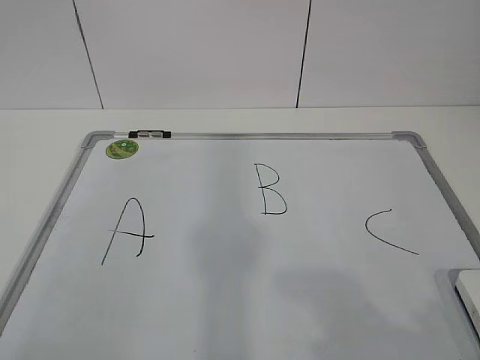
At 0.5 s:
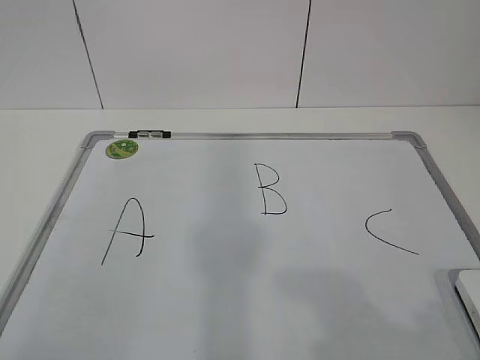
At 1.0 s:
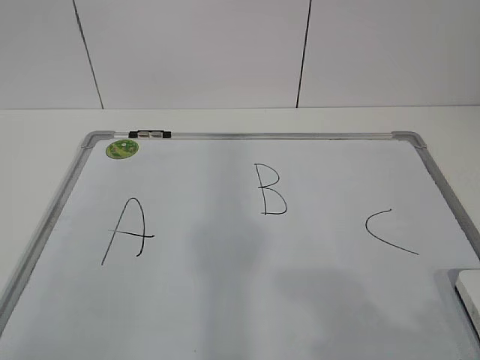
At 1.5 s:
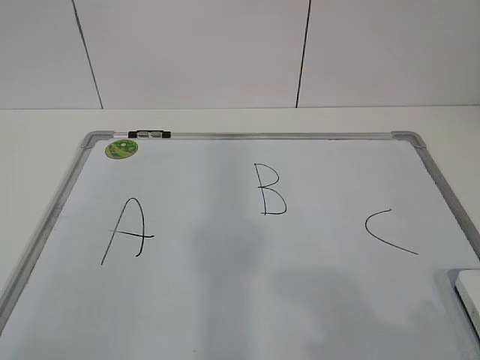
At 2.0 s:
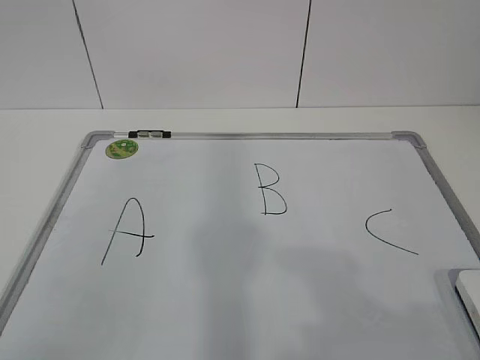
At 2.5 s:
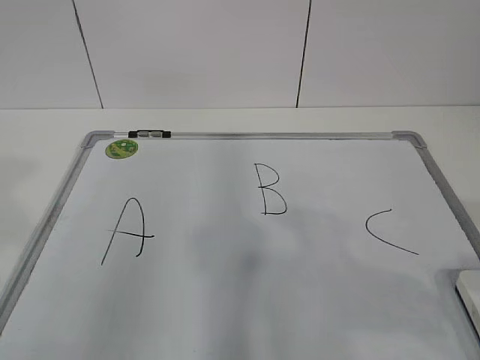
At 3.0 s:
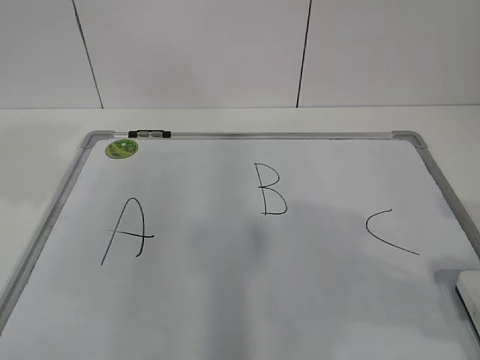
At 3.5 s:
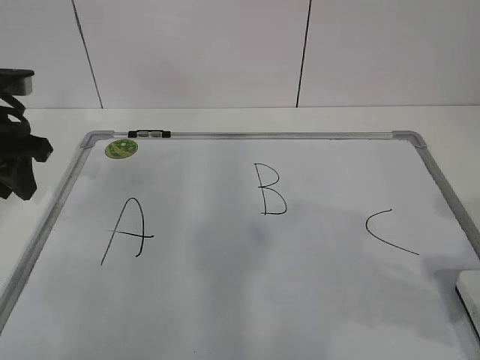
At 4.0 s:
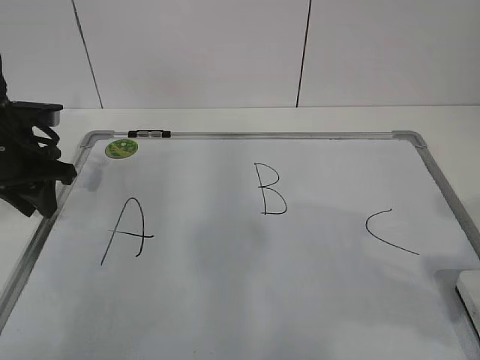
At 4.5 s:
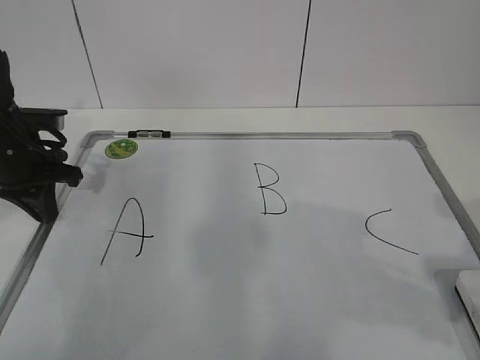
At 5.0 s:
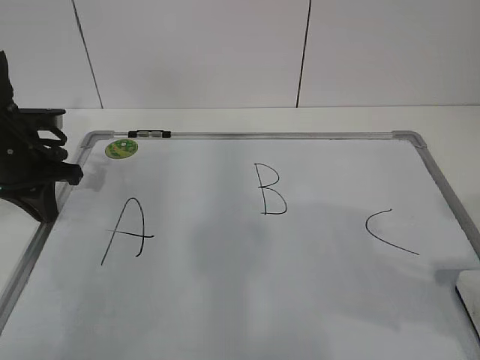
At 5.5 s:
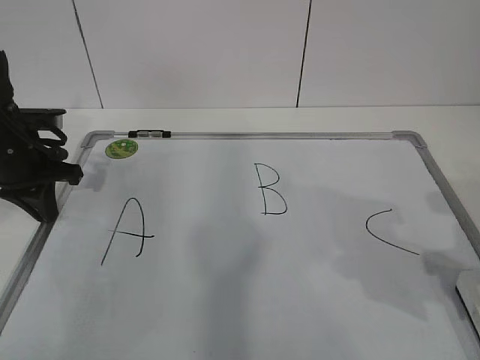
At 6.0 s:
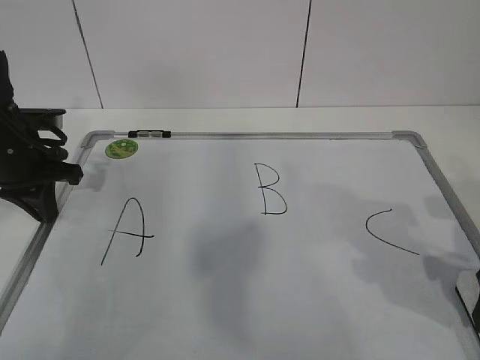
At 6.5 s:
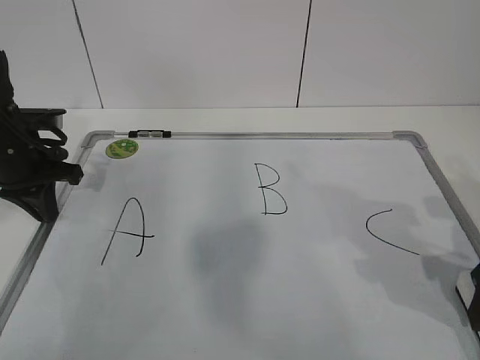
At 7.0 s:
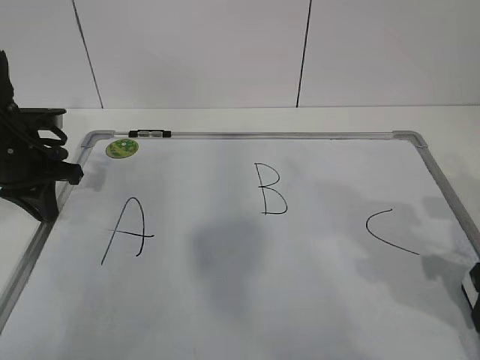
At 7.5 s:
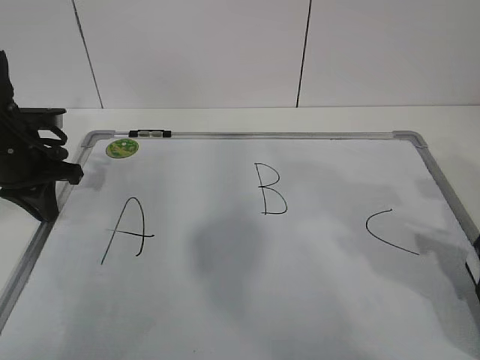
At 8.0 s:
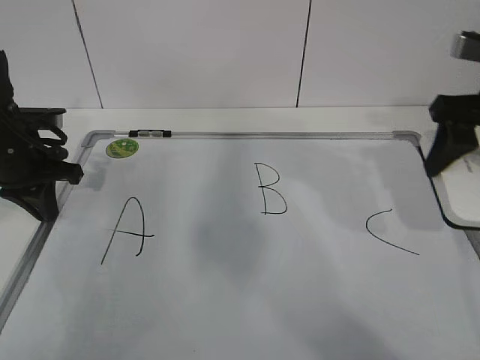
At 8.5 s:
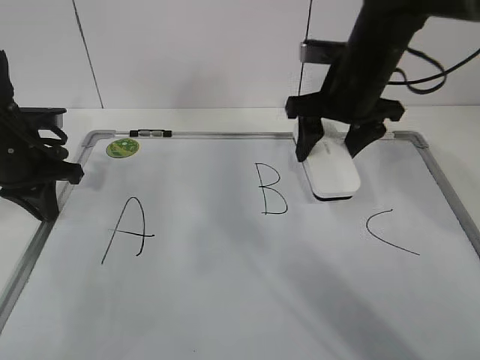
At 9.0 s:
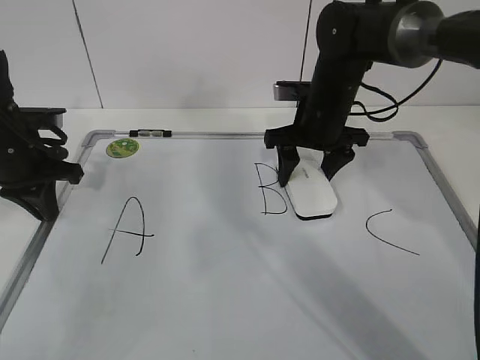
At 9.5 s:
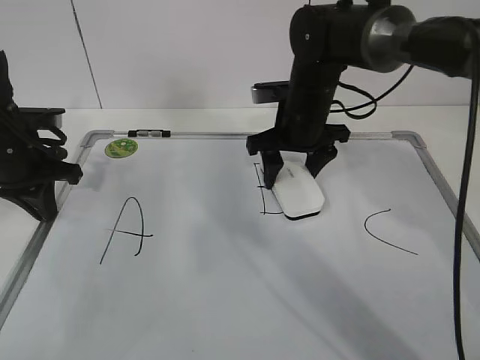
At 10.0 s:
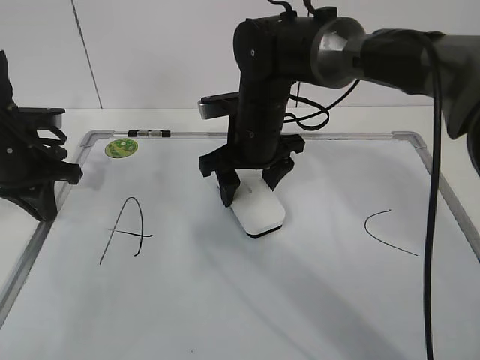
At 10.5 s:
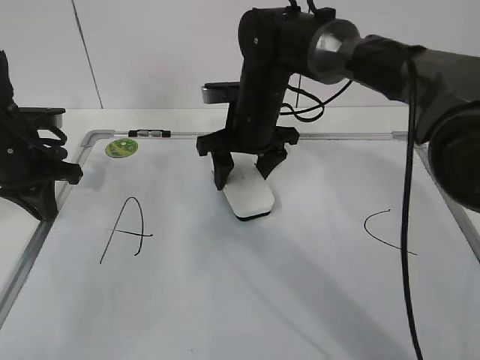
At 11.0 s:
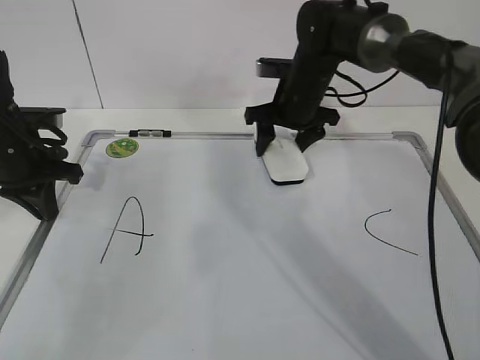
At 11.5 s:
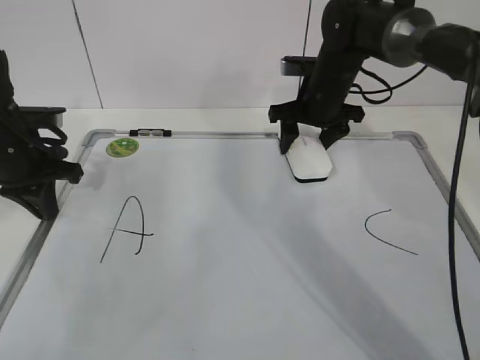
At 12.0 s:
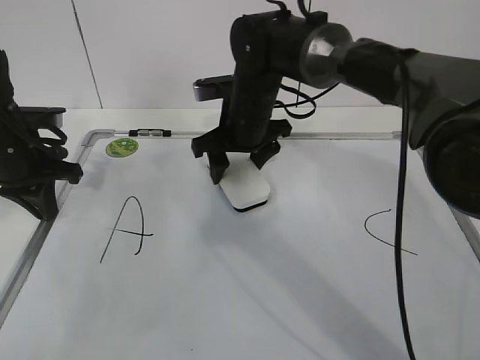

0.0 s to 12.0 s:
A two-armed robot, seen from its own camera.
Task of the whole recording: pick up the eraser on the blackboard and erase the letter "B".
Step, 0.0 to 3.5 s: Hold the drawing board steady with your left hand.
Step, 4.0 to 5.5 s: Grab the eraser with your right hand.
Step, 6.0 to 10.5 s: Erase the letter B with your right hand.
2.0 to 4.0 s: The right gripper travels forward by some 10 cm; the left gripper moves forward, approximately 35 cm.
4.0 to 6.0 s: The left gripper closes.
6.0 to 8.0 s: The right gripper goes some 15 cm forward and upward, and closes its fingers.
8.0 to 10.0 s: The right gripper goes approximately 30 cm to the left, downward and forward.
10.0 to 12.0 s: The right gripper travels to the right and back again, approximately 10 cm each way.

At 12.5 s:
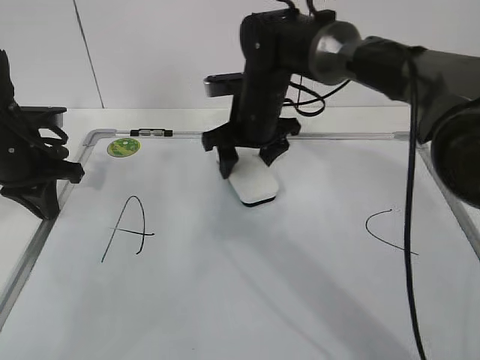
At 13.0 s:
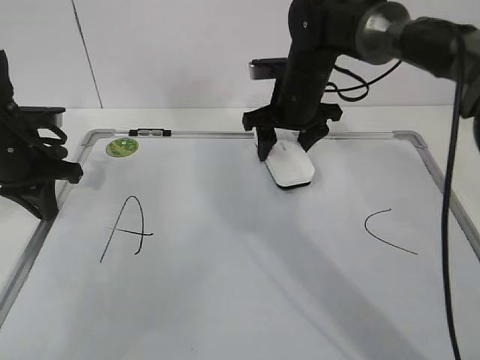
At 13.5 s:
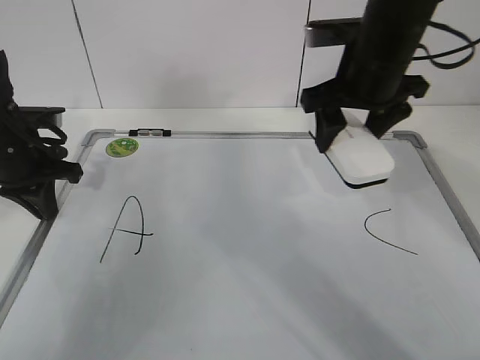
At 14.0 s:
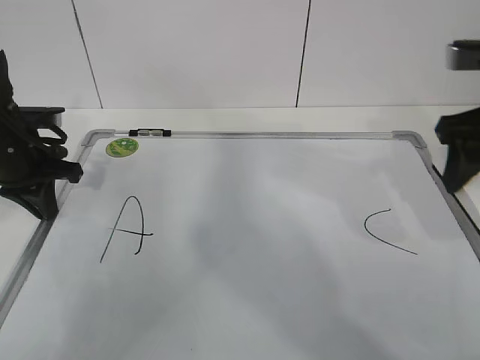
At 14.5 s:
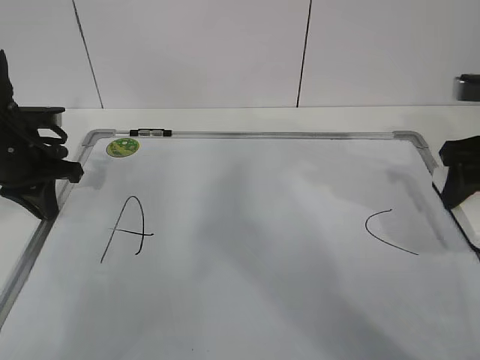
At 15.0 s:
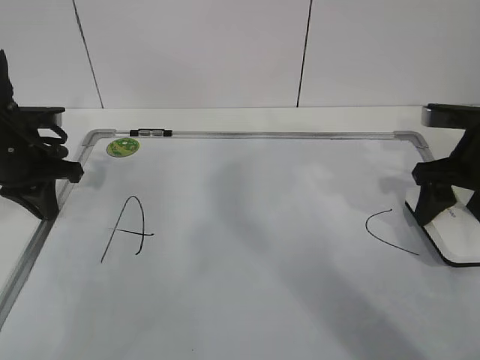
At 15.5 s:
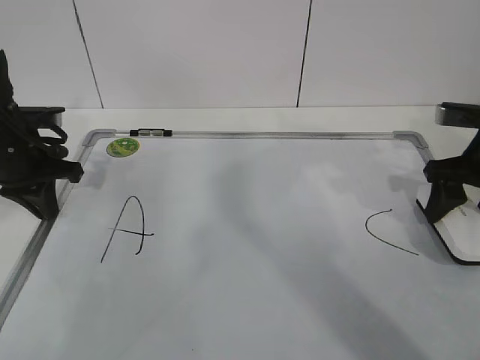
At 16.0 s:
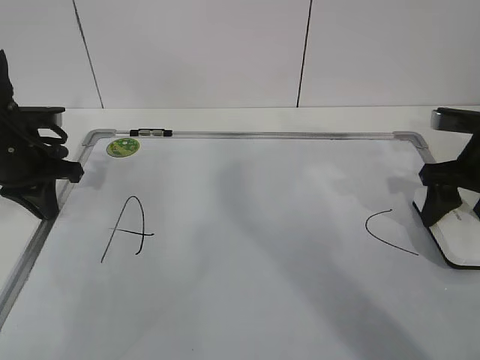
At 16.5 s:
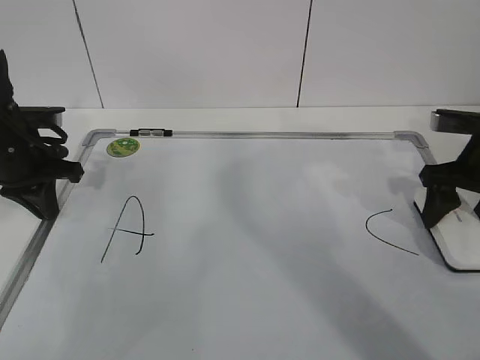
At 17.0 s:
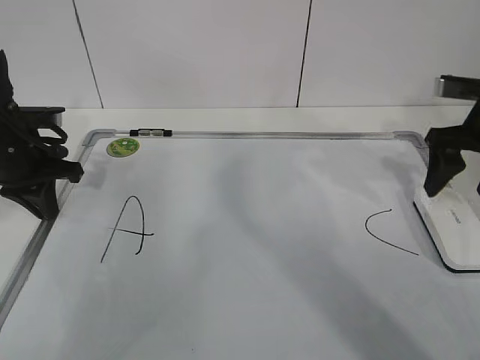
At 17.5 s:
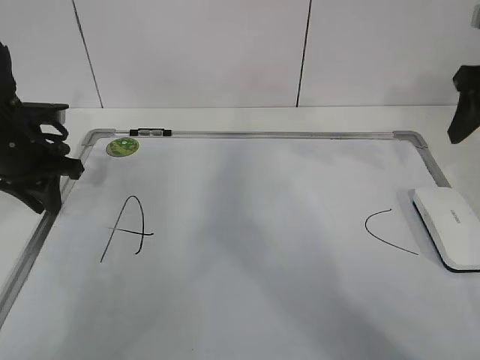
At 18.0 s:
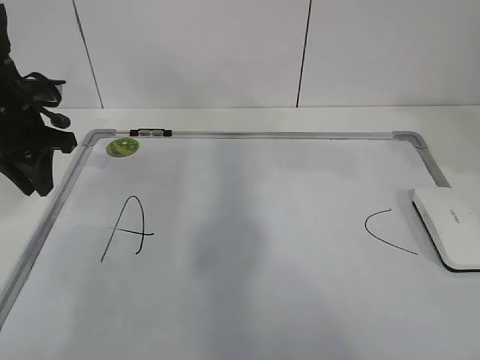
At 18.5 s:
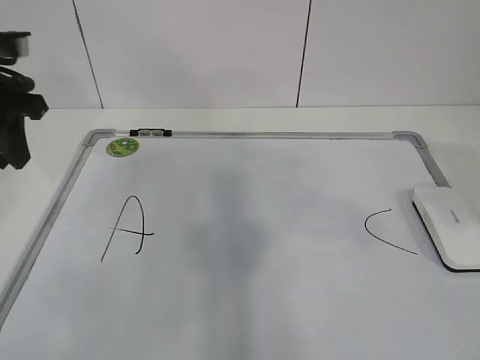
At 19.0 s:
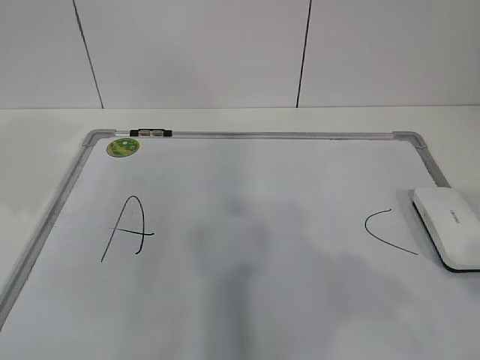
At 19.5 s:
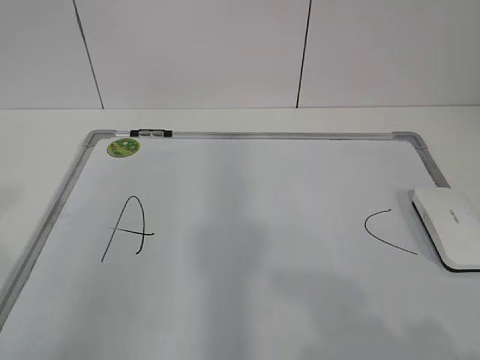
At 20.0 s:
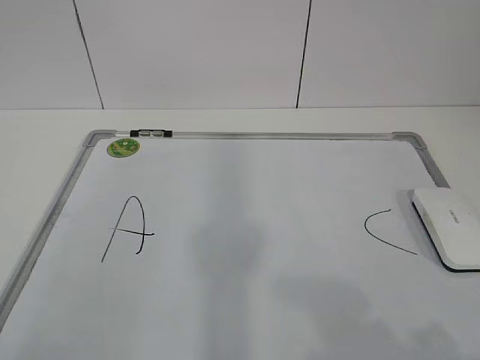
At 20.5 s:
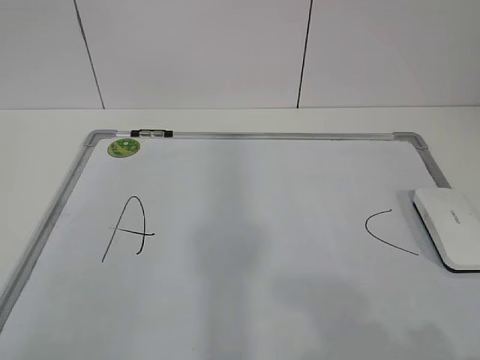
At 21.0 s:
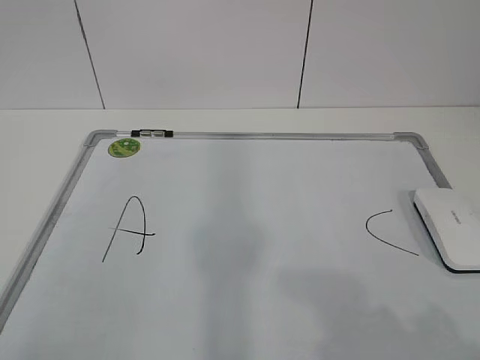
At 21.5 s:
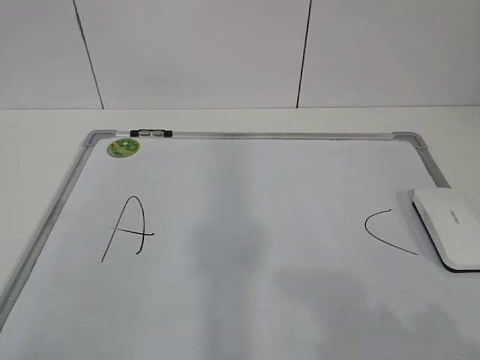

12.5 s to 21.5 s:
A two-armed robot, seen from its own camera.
Task of the whole recording: pick up the eraser on the blackboard and erase the letter "B".
12.5 to 14.5 s: The right gripper moves to the right and backward, some 30 cm.
14.5 to 17.0 s: The right gripper opens.
17.0 to 19.5 s: The right gripper moves backward, some 40 cm, and closes; the left gripper goes about 35 cm backward and upward, and opens its fingers.

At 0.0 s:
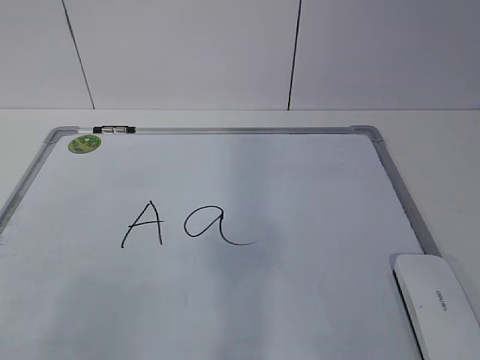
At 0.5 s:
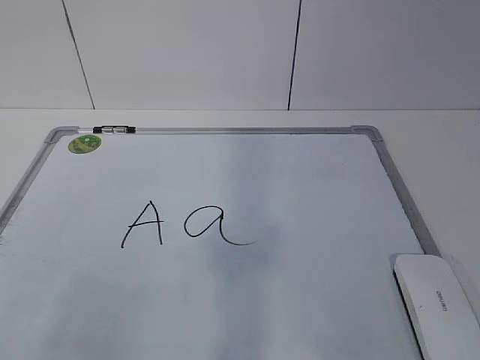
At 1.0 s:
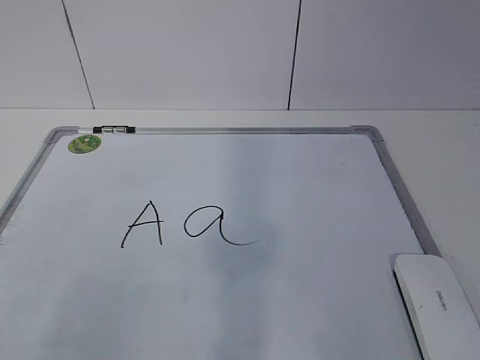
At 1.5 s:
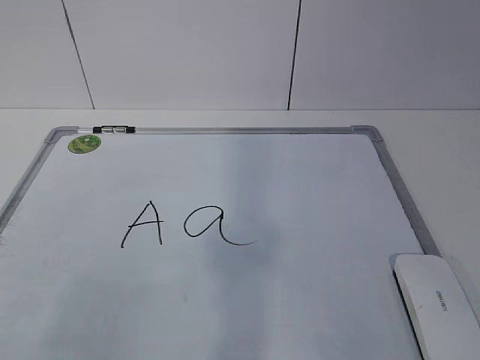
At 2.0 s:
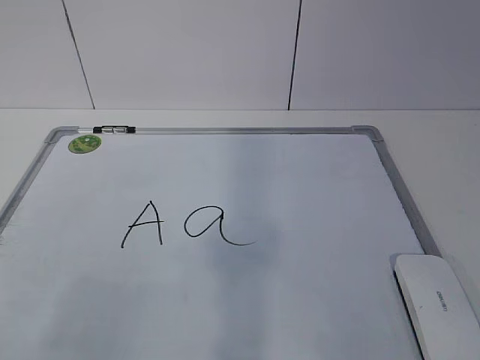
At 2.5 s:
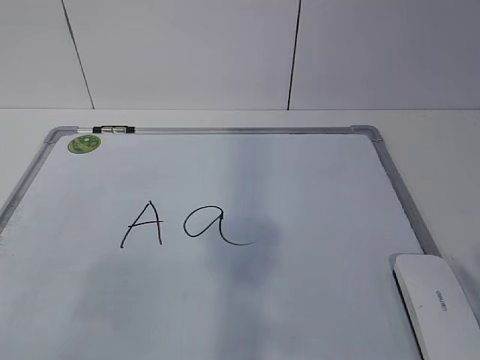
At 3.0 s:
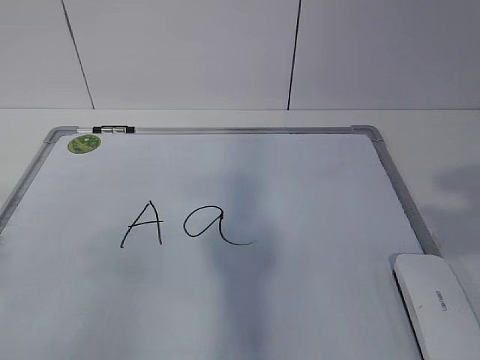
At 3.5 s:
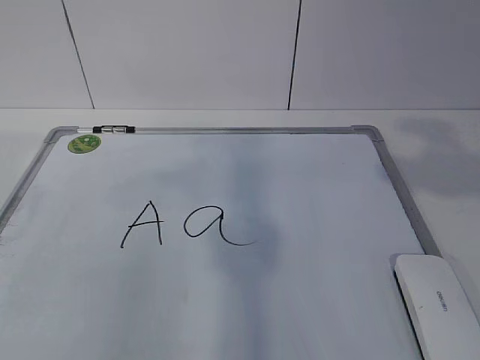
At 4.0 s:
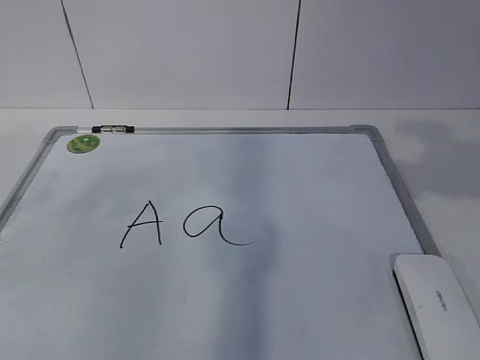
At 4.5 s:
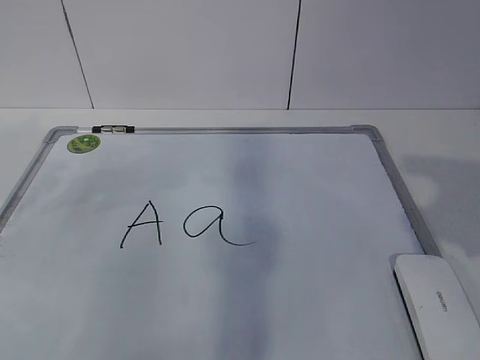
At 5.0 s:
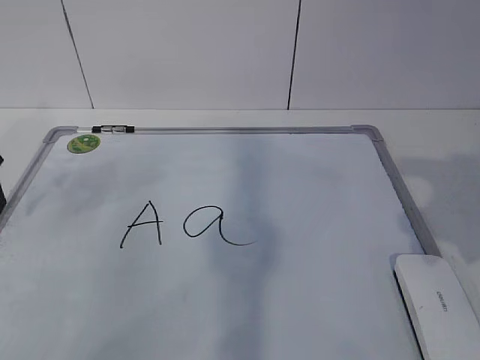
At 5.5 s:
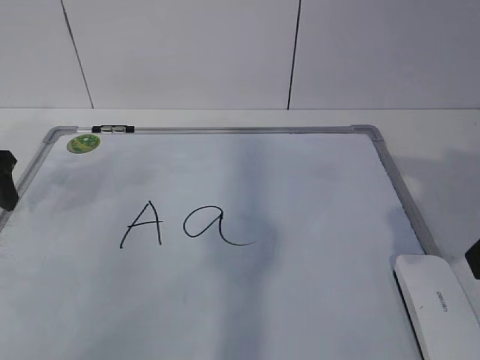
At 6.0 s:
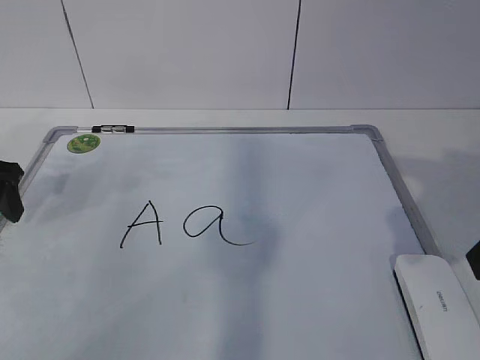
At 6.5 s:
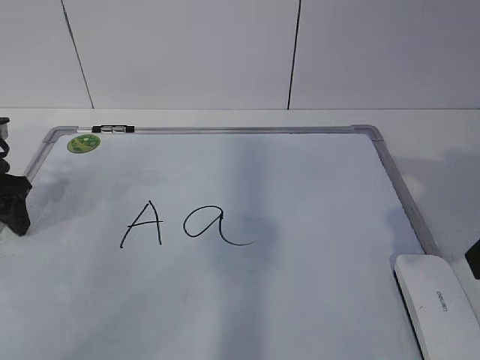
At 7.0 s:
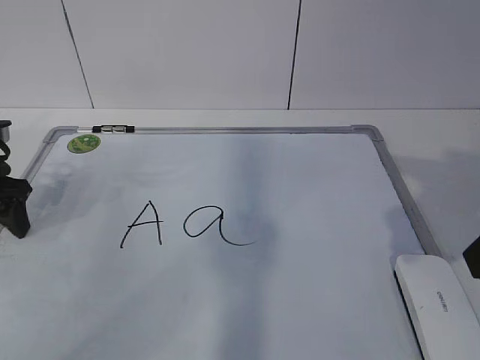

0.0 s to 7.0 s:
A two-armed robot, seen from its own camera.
Task of the whole recording: pick up the eraser on the blackboard and erase the letter "a".
5.0 to 7.0 s: The left gripper moves downward, about 5 cm.
